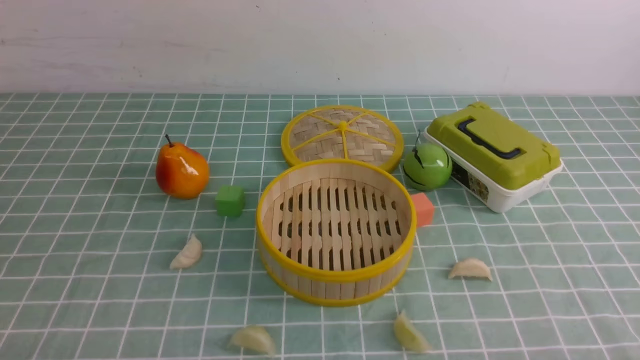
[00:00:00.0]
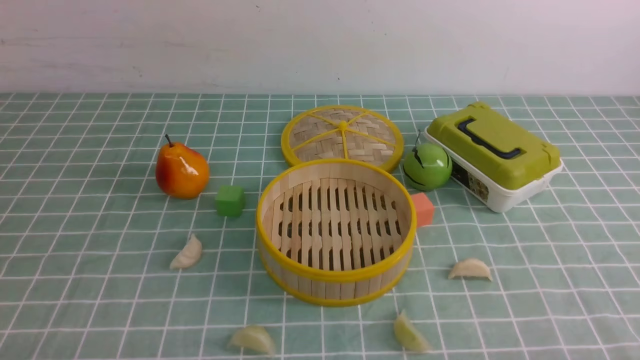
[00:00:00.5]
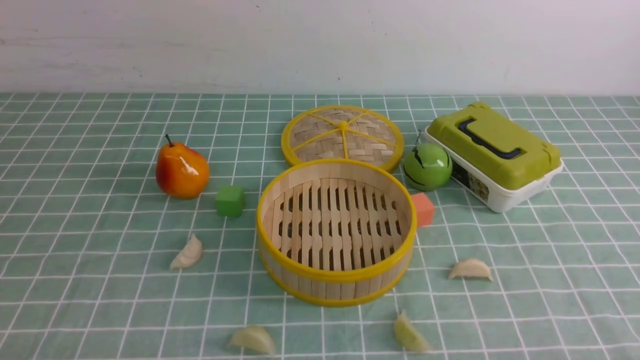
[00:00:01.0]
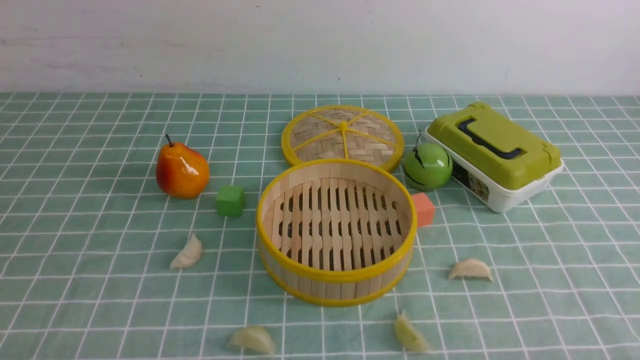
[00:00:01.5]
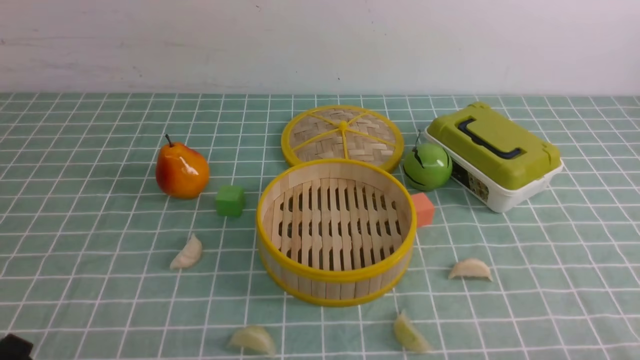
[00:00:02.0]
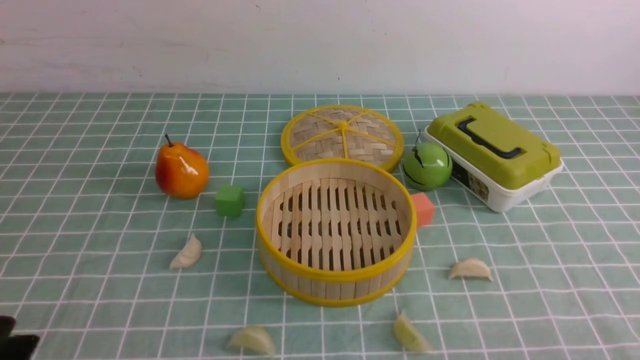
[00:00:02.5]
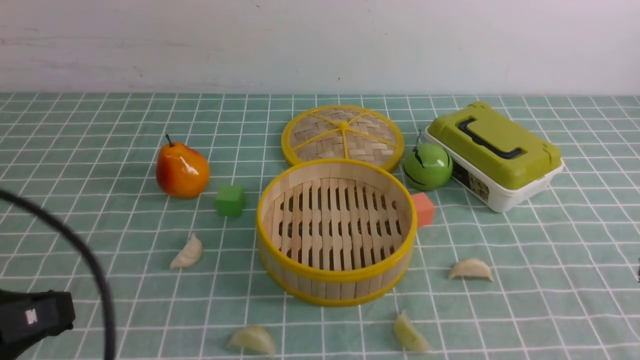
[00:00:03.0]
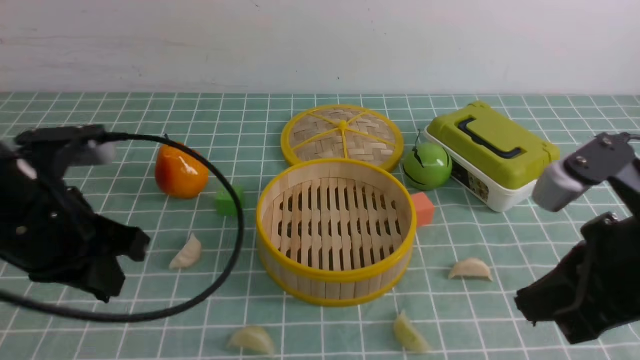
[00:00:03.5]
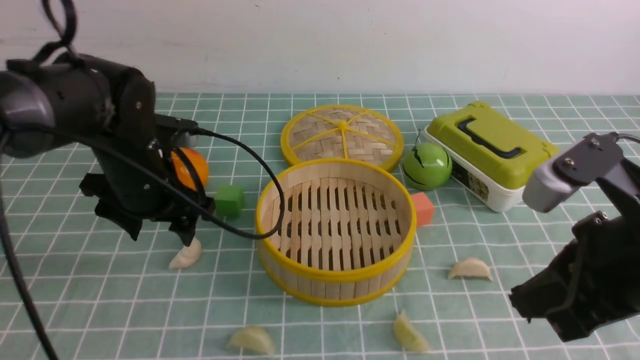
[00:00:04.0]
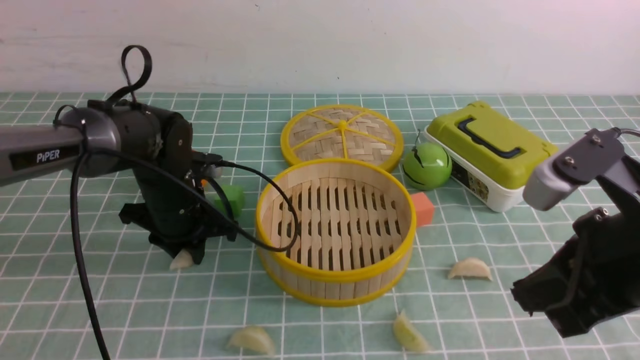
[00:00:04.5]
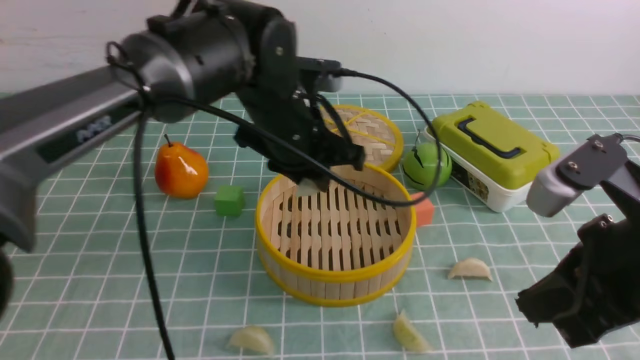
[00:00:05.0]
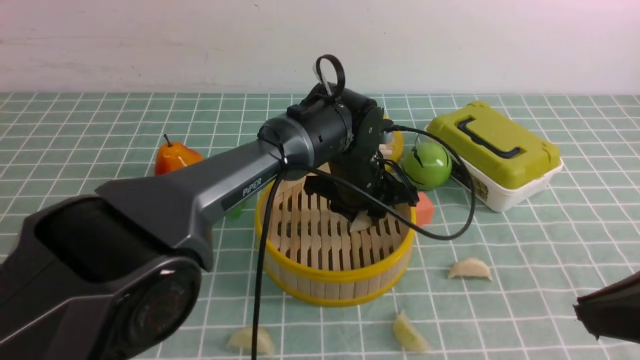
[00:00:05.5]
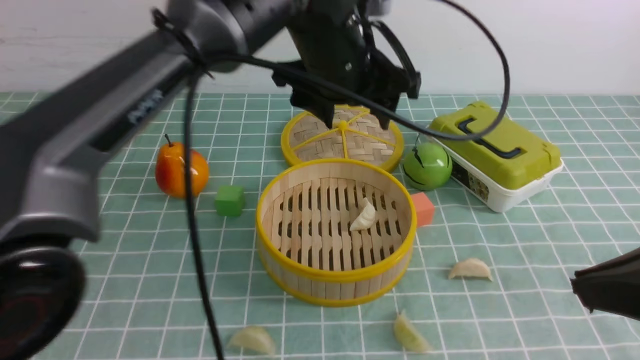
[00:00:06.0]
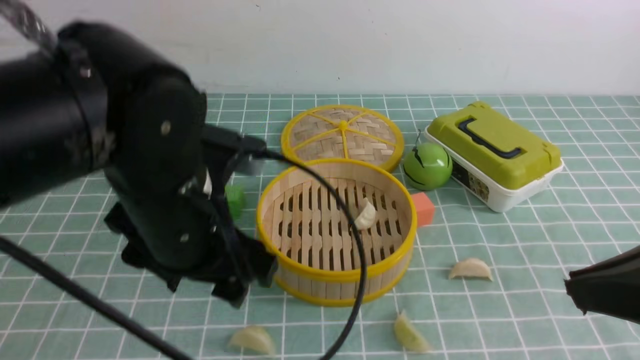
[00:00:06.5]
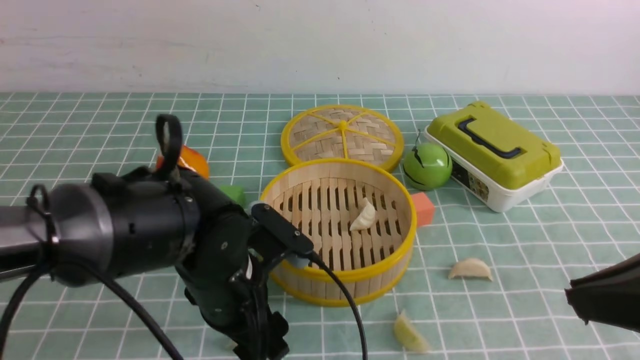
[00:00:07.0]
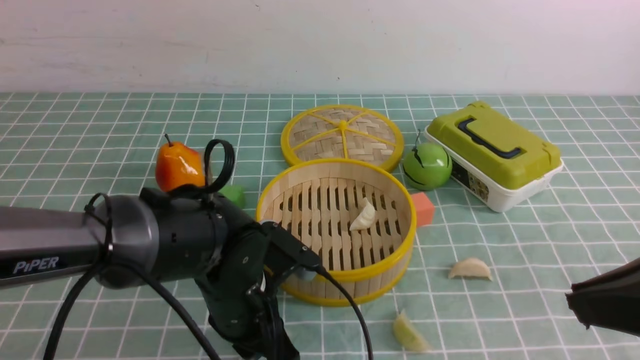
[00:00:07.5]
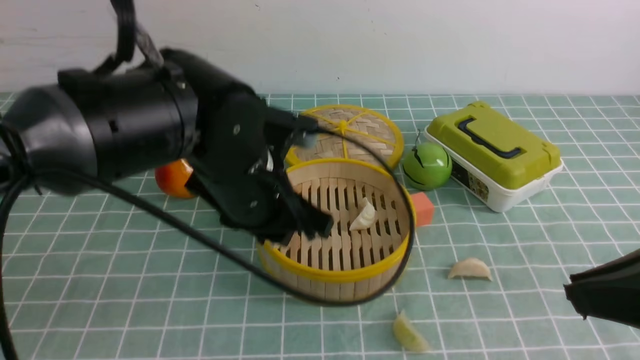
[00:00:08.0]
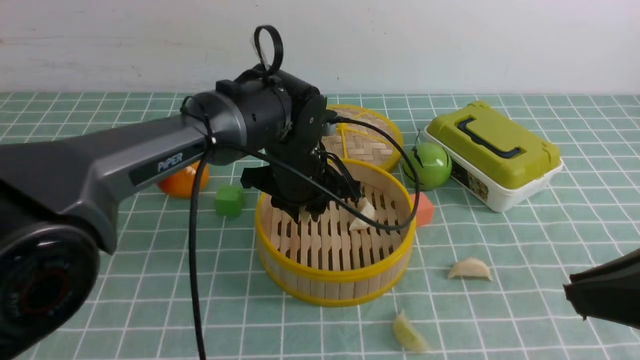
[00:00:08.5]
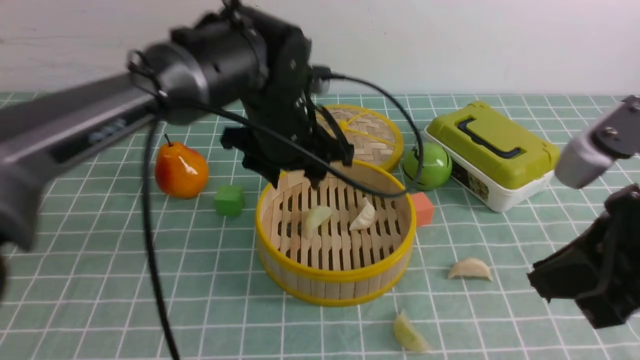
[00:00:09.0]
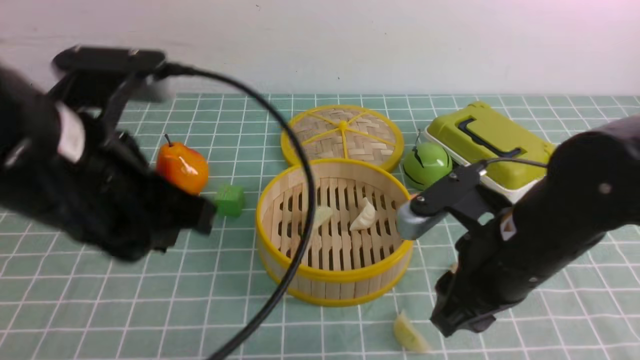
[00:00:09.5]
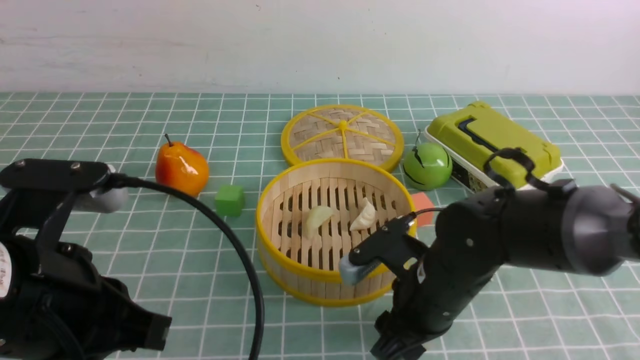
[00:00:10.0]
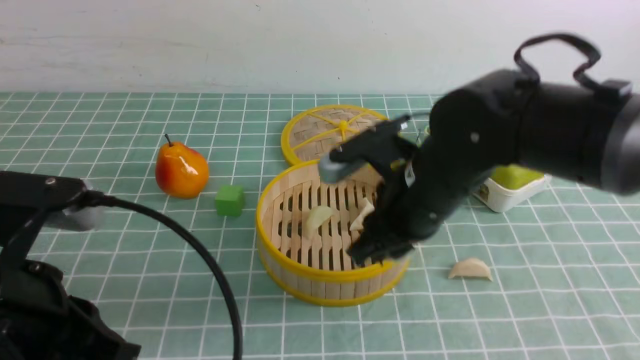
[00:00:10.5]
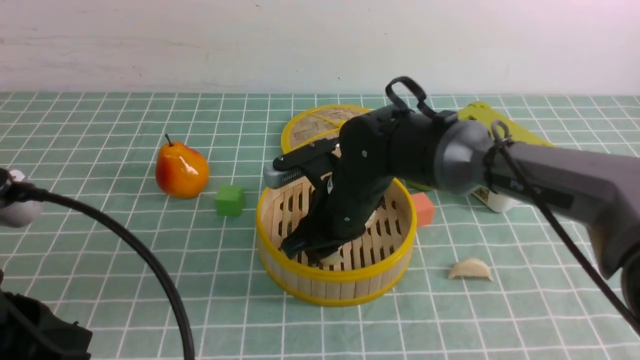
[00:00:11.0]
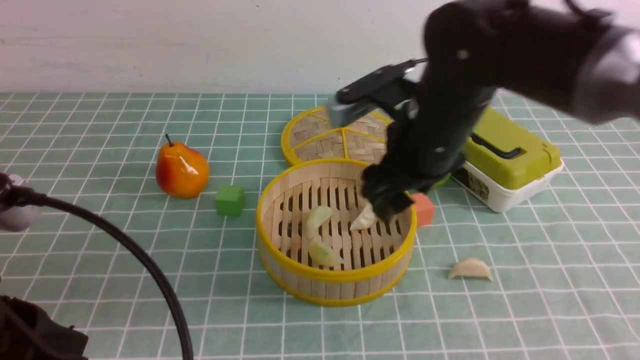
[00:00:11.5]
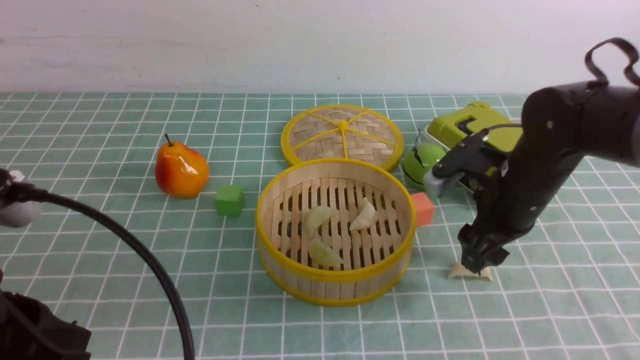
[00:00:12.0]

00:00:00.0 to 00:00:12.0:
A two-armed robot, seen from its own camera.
Task of the whole recording: put the dumplings into the steamer on the table with the blue tablecloth.
Step, 00:00:00.0 to 00:00:04.0: use the left arm to grab a dumpling.
Step, 00:00:05.0 to 00:00:05.5: use the left arm to put the dumpling into the steamer.
Step, 00:00:06.0 to 00:00:07.0: use the left arm to grab a dumpling.
Step, 00:00:08.0 to 00:00:08.5: use the left arm to put the dumpling into the steamer.
Step, 00:00:09.5 to 00:00:10.0: use the right arm to grab a dumpling.
Step, 00:00:10.5 to 00:00:11.0: use the right arm to put the dumpling into the steamer.
00:00:02.0 to 00:00:04.0: The right gripper travels forward, upward and to the left by about 20 cm, and closes its fingers. The left gripper shifts some 30 cm forward, and opens its fingers.
00:00:04.0 to 00:00:06.0: The left gripper is displaced to the right and upward by approximately 25 cm, and closes and opens again; the right gripper heads backward, covering roughly 5 cm.
00:00:06.0 to 00:00:08.0: The left gripper goes approximately 15 cm downward, backward and to the left, and closes up.
00:00:08.0 to 00:00:10.0: The right gripper is displaced downward, forward and to the left by some 25 cm, and opens, while the left gripper goes roughly 20 cm backward and to the left, and closes its fingers.
00:00:10.0 to 00:00:12.0: The left gripper changes place by roughly 5 cm. The right gripper goes approximately 15 cm to the right and forward.

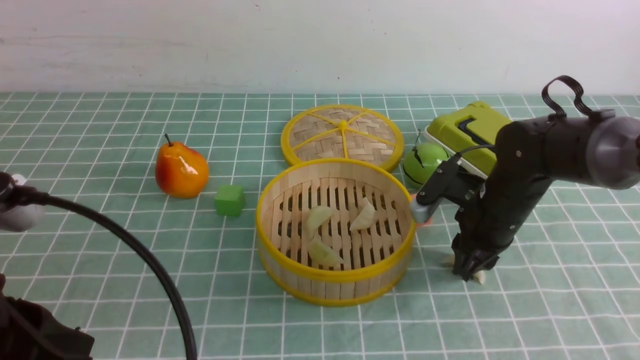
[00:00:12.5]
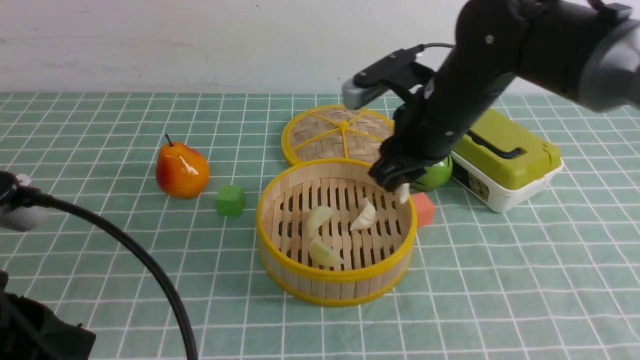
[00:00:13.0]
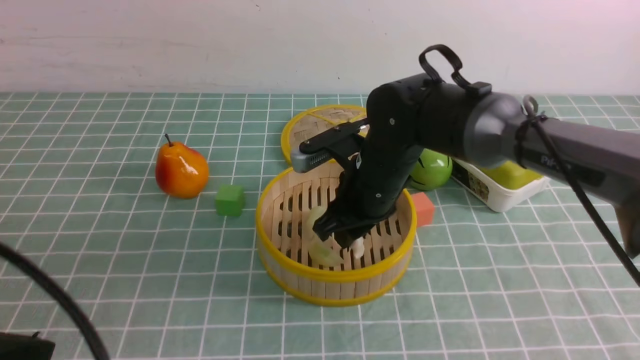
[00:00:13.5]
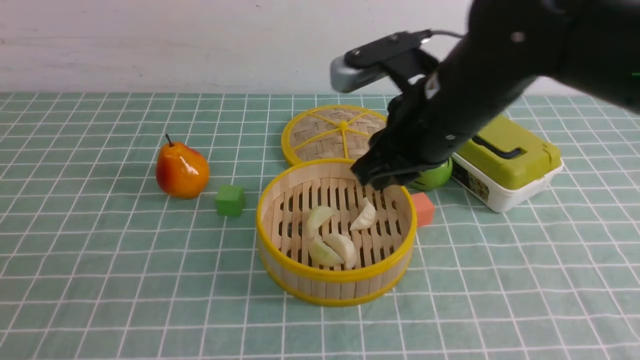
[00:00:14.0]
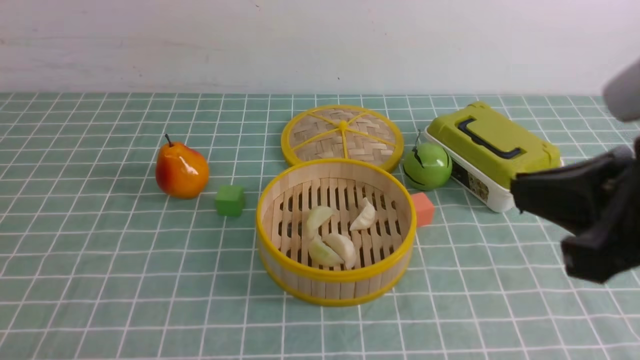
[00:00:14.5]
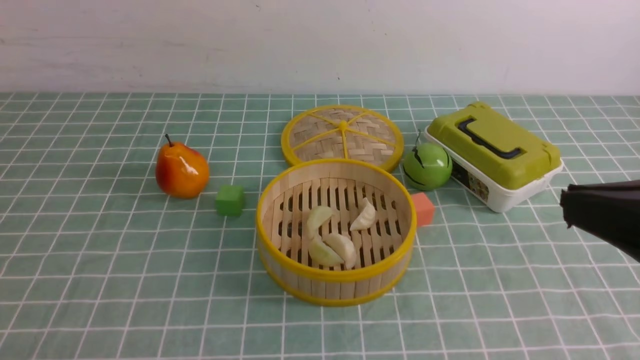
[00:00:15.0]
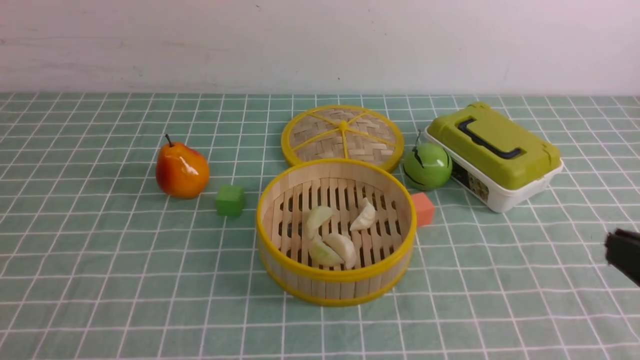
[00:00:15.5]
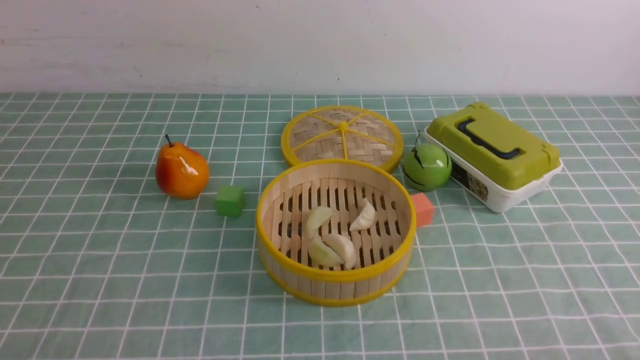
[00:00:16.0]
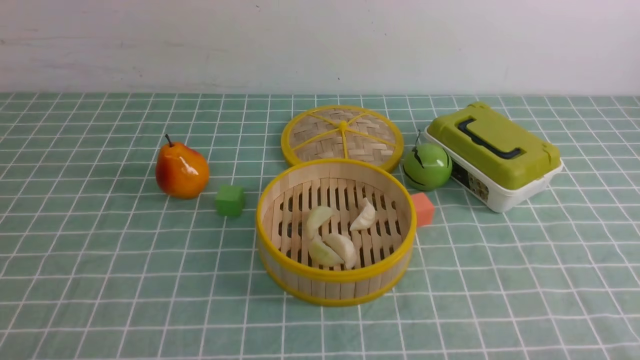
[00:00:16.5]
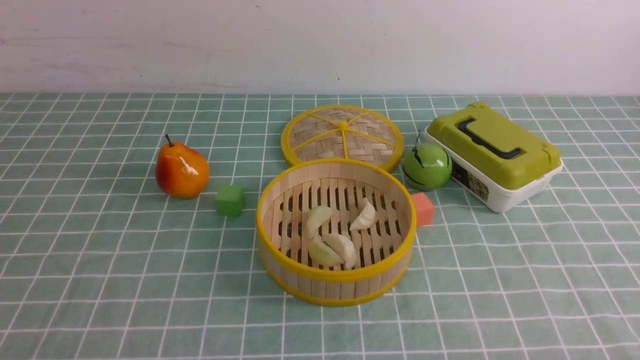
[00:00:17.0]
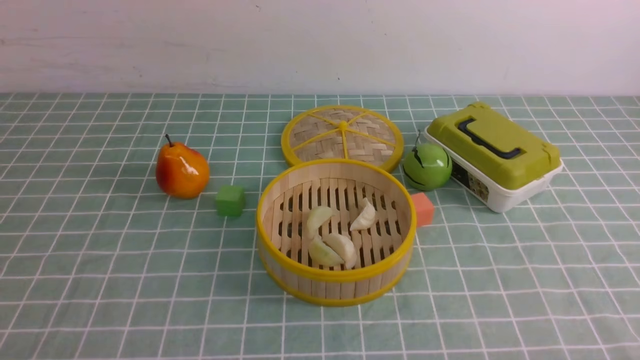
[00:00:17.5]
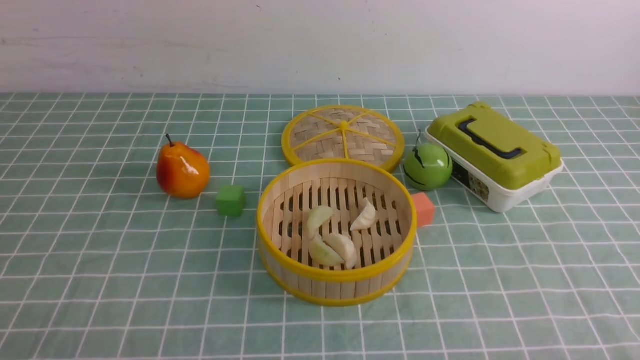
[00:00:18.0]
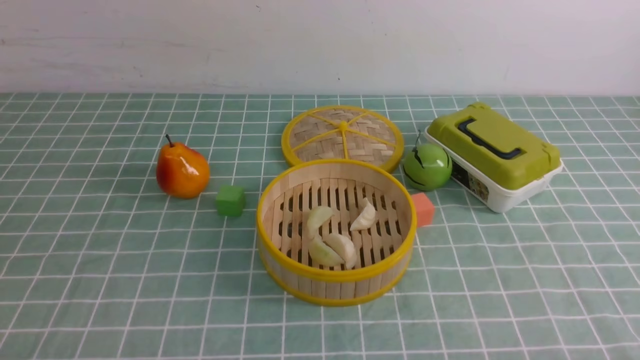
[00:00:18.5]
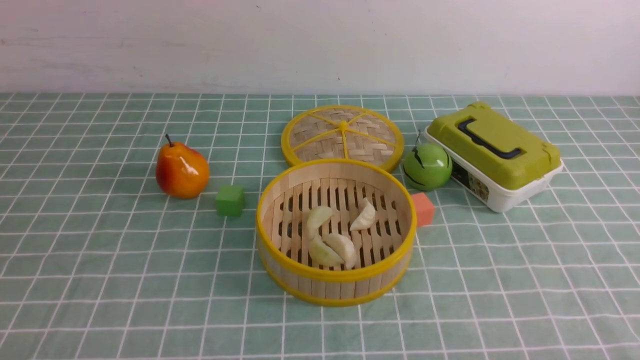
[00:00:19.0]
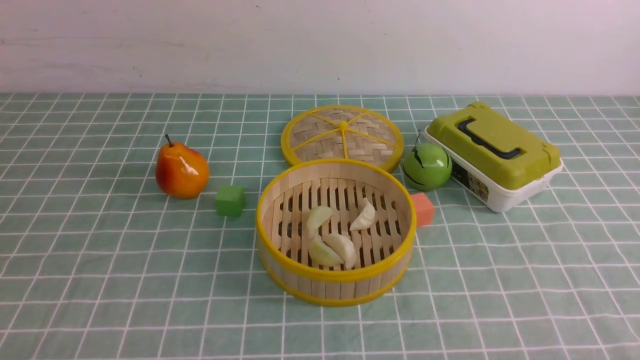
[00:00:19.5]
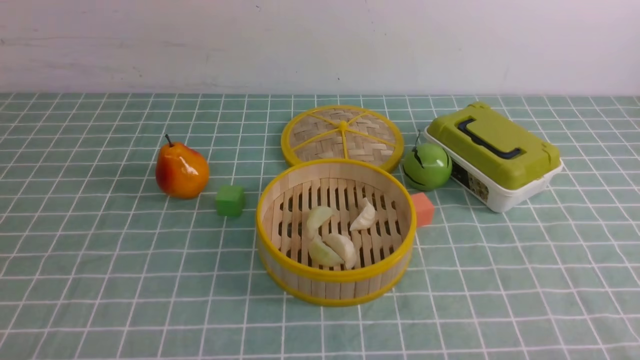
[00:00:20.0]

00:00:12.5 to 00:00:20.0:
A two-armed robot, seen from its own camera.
Task of the whole recording: put the dumplings into the steamer on the table with the blue tablecloth.
Step, 00:00:13.0 to 00:00:13.5: use the right arm to put the dumpling into the steamer.
00:00:12.5 to 00:00:14.5: The left gripper shifts roughly 10 cm backward and to the left. The right gripper is displaced backward and upward by approximately 30 cm, and closes up.
00:00:14.5 to 00:00:16.5: The right gripper moves downward, to the right and backward, roughly 25 cm.
